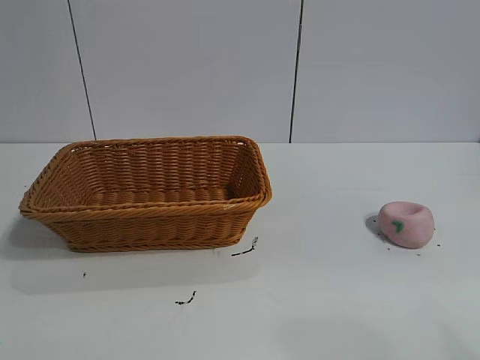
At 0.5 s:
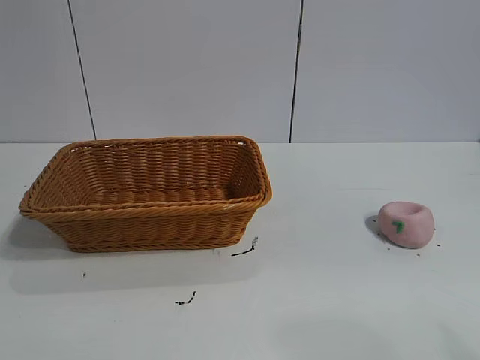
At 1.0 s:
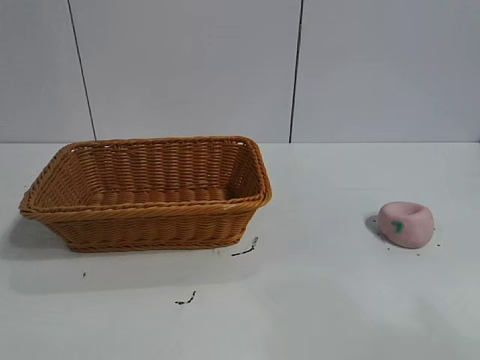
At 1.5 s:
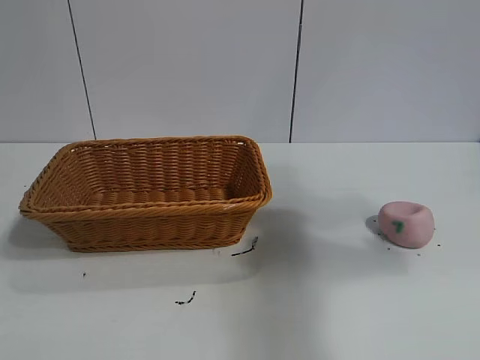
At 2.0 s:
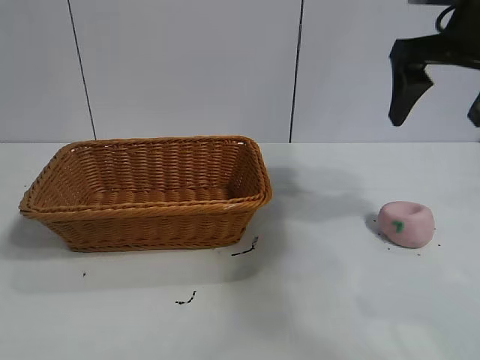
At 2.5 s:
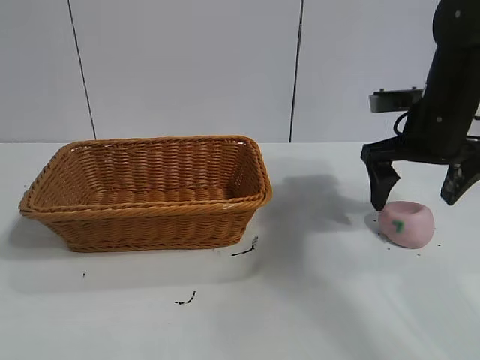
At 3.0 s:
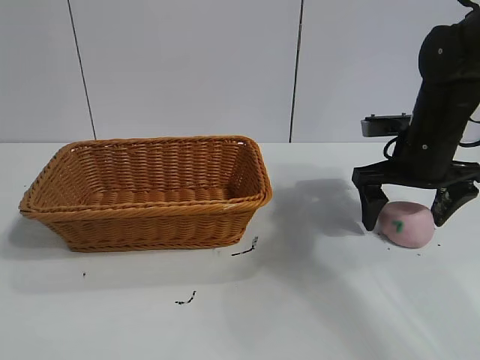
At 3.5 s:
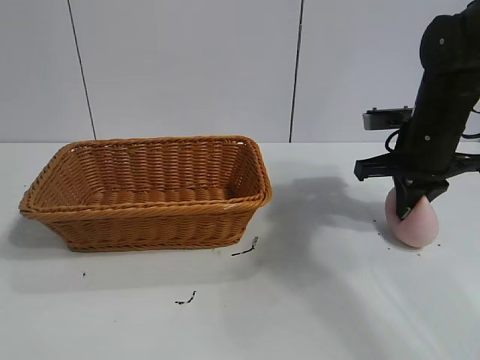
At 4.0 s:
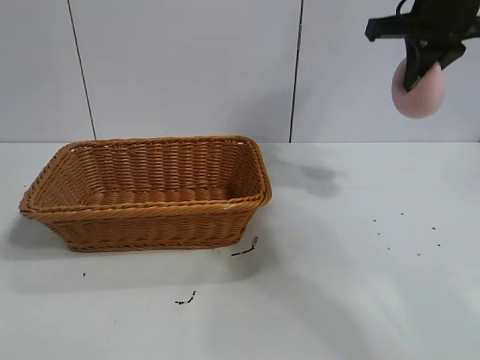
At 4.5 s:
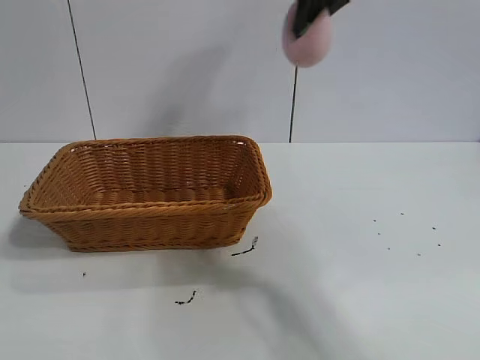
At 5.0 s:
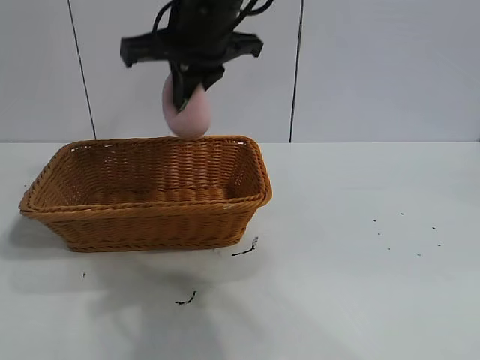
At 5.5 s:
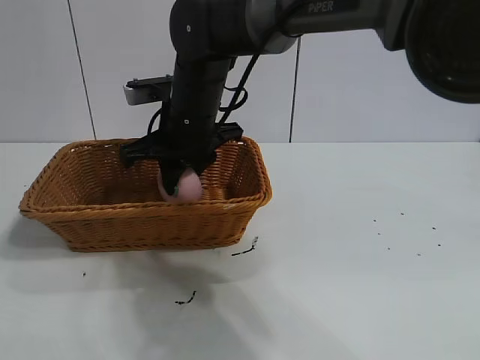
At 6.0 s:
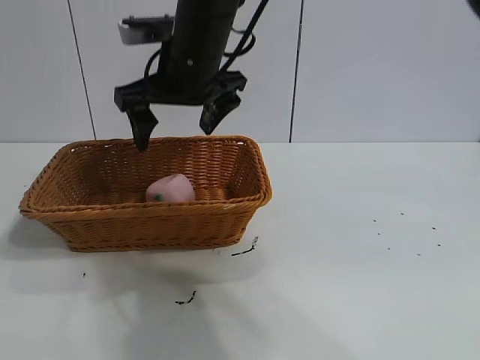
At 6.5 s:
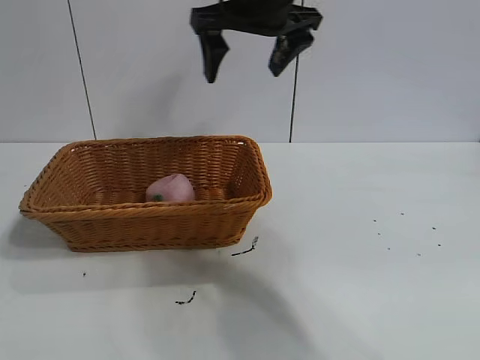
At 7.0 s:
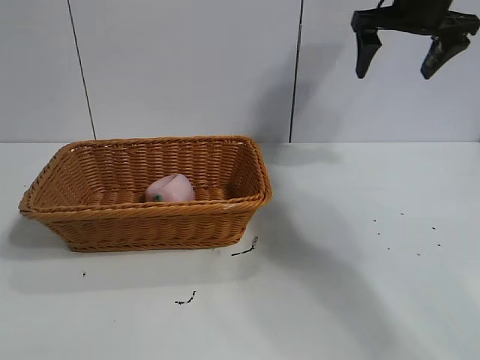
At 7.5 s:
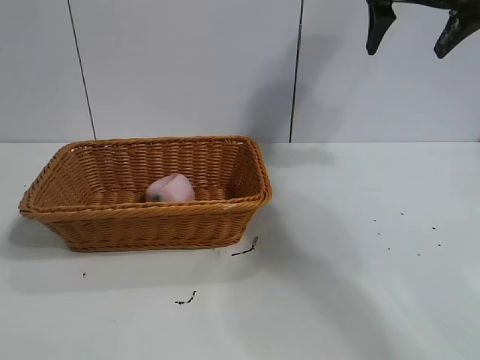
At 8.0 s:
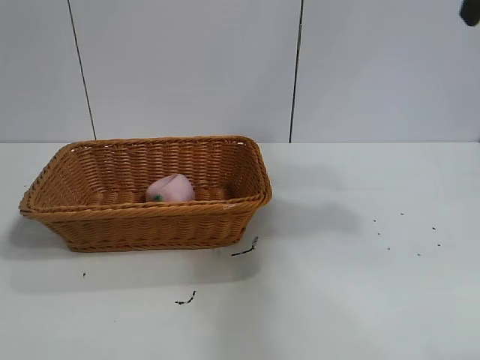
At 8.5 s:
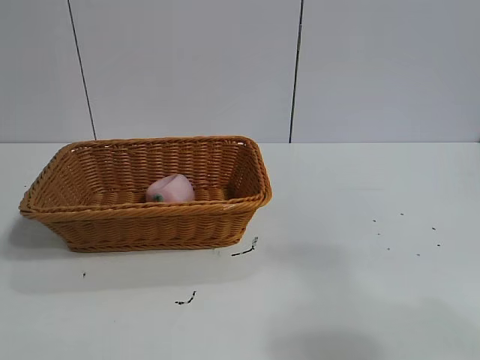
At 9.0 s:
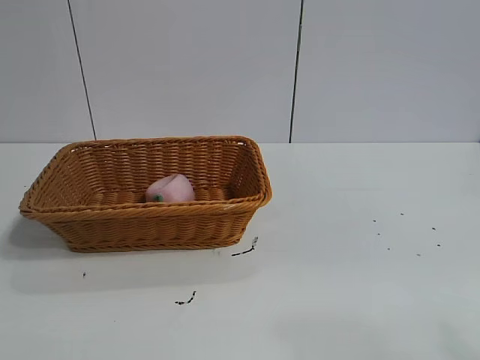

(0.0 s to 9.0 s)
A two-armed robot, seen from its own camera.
Task of the whole recording: pick up the peach and put it into the basket.
Step, 1.0 s - 3.0 s: Grasp the peach with right gripper.
Step, 3.5 s - 5.5 s: Place the peach in the basket with right gripper.

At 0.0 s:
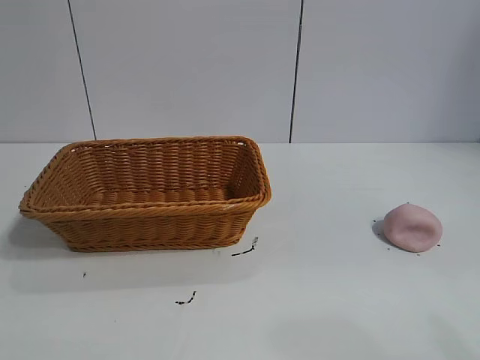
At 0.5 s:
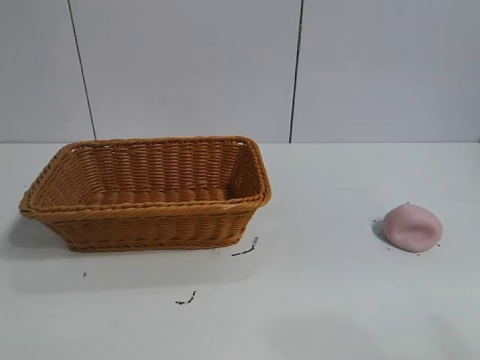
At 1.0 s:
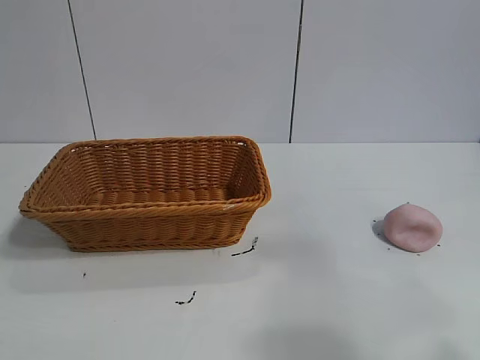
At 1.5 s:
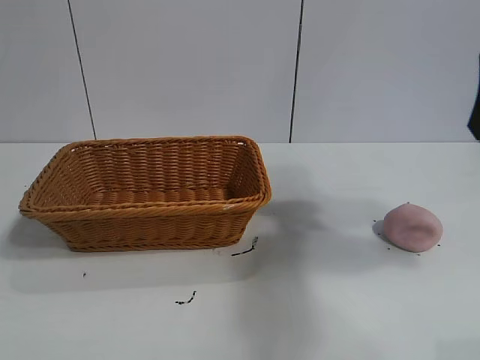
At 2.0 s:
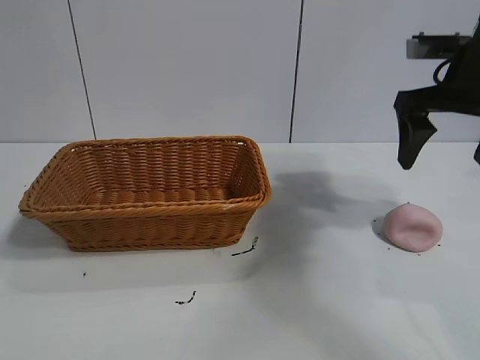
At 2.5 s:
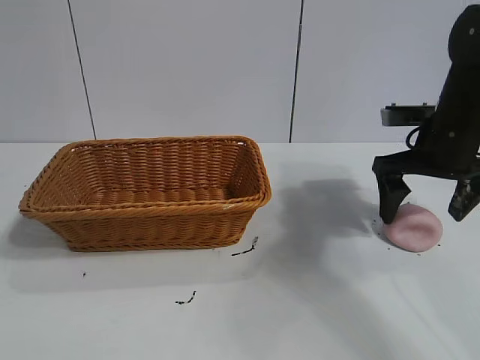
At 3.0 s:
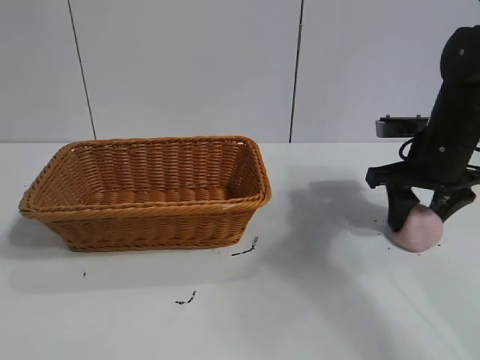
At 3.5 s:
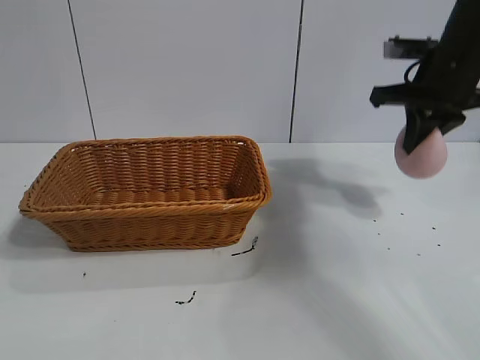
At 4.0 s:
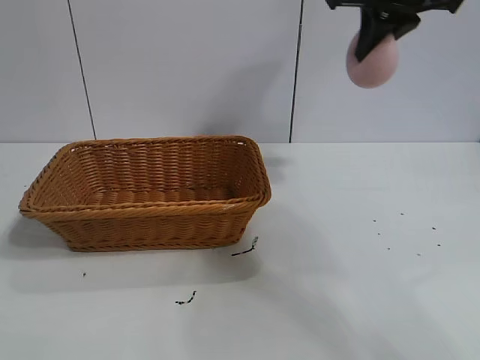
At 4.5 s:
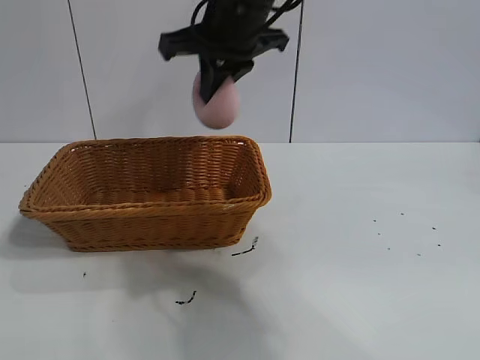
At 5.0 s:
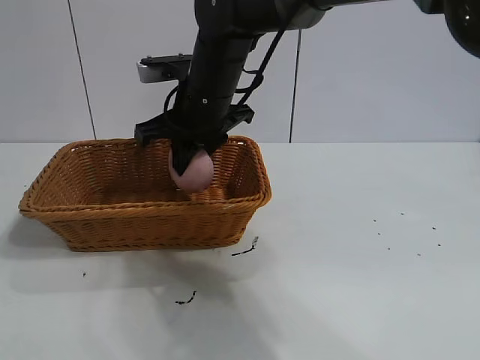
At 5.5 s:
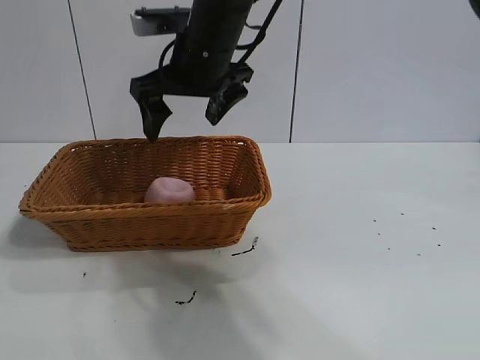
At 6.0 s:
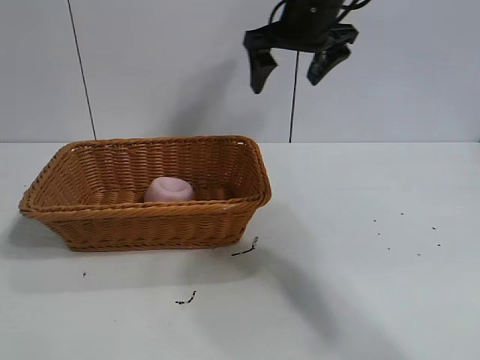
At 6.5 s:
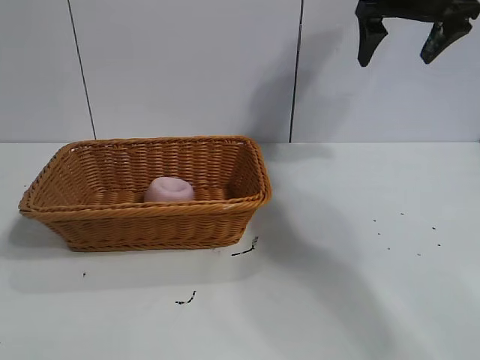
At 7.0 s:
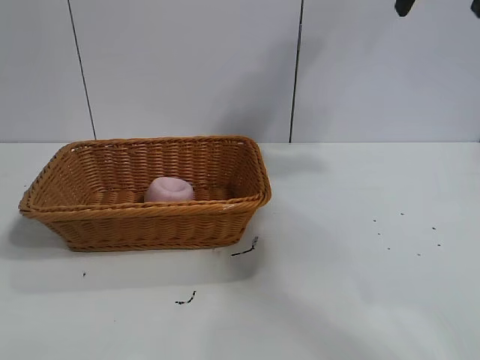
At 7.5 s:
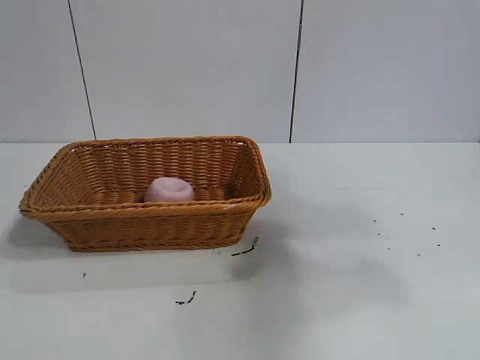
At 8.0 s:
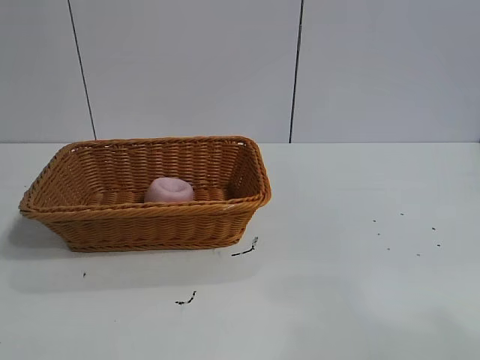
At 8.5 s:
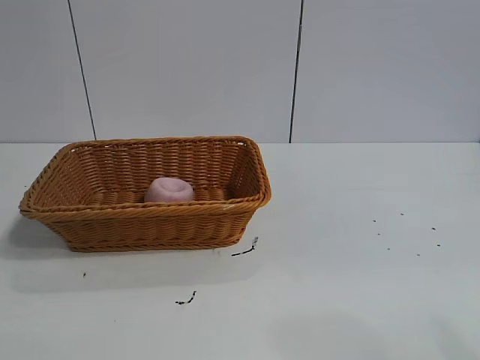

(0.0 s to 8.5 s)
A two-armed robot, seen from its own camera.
Task of the whole recording: pick up the peach and put it into the basket.
Step, 1.0 s - 3.0 s: Grasp the peach with right gripper.
Step, 3.5 s - 5.0 s: Place the peach in the basket with right gripper.
